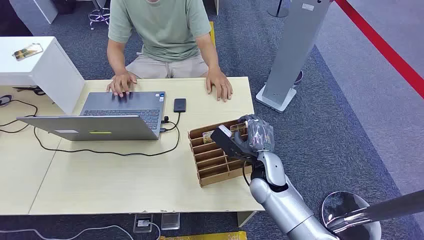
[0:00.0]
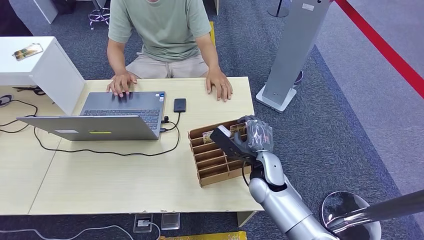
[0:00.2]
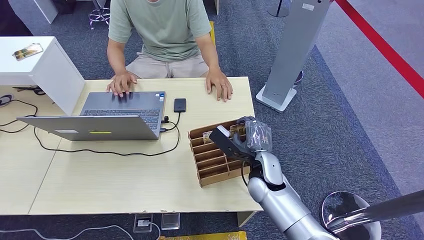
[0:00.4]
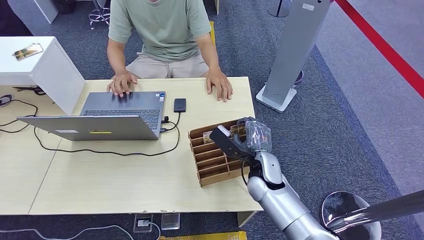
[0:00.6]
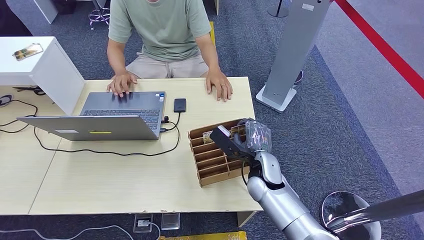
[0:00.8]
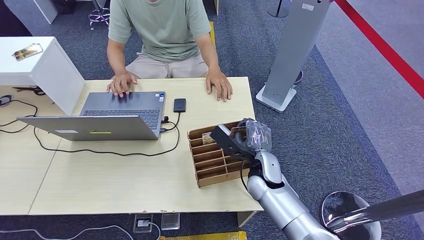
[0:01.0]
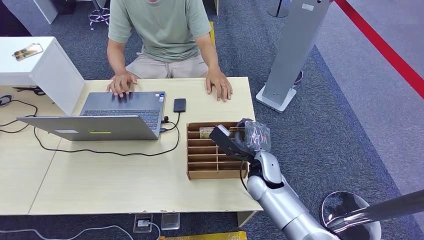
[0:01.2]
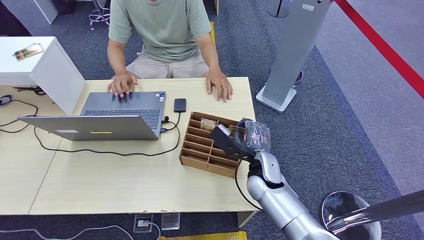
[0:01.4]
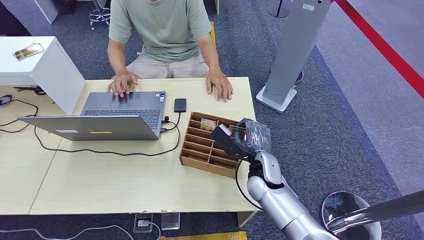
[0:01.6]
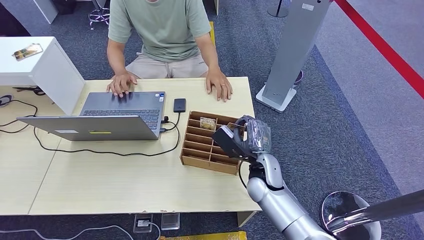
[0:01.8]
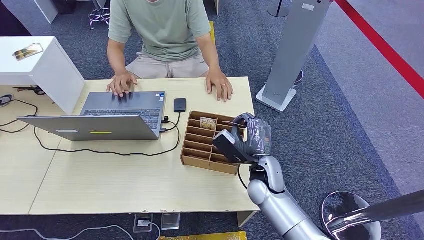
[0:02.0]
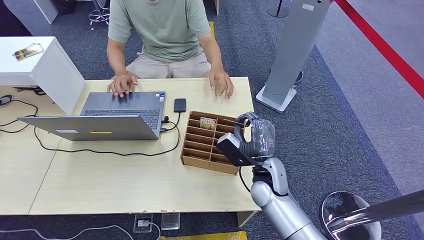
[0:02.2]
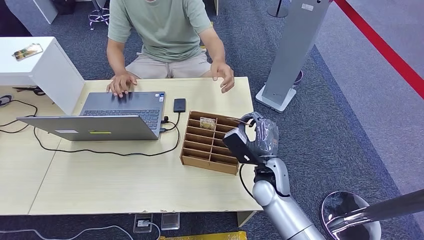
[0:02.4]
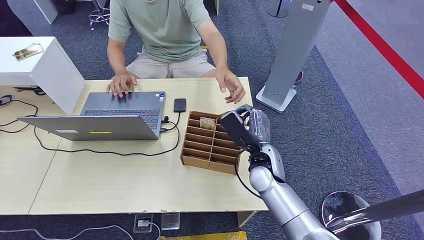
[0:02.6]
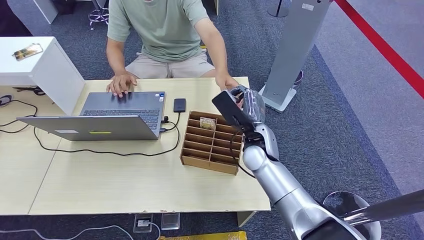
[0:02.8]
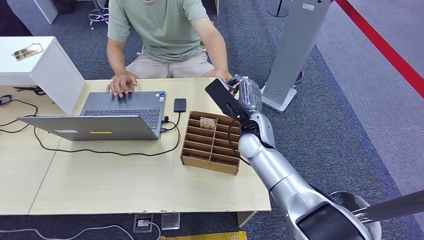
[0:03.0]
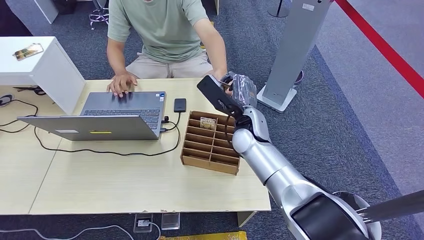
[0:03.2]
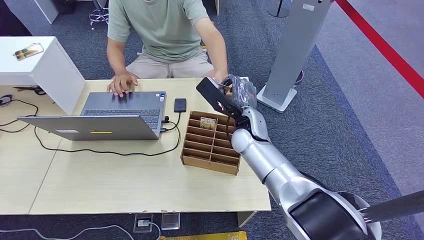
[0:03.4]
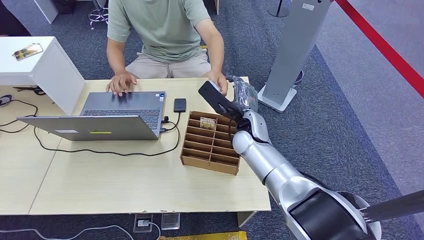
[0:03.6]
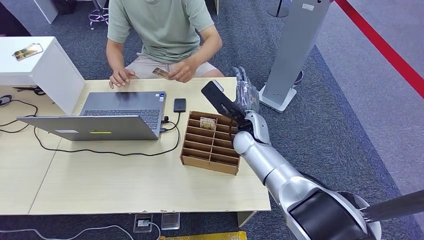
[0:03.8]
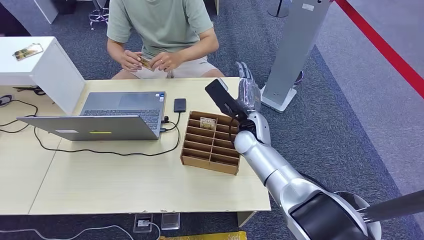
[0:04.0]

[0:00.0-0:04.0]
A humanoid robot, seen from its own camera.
Step, 0:00.0 to 0:02.0: Pick up the key card from the card box.
Step, 0:02.8 to 0:03.8: Hand the key card to the target.
0:02.6 to 0:04.0: The right hand shifts roughly 10 cm forward.
